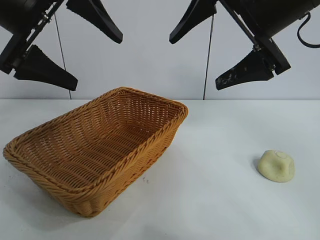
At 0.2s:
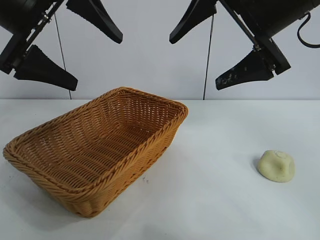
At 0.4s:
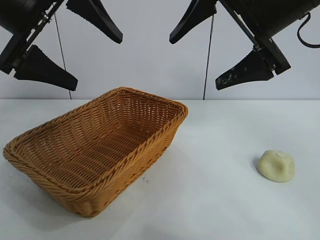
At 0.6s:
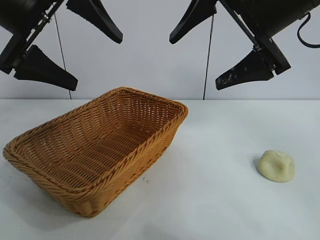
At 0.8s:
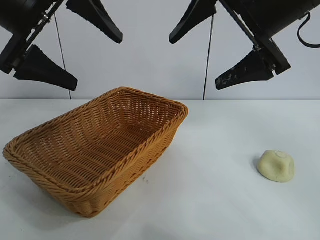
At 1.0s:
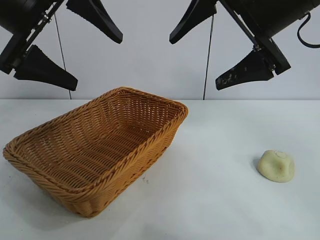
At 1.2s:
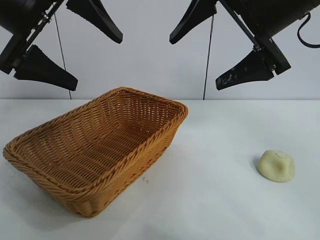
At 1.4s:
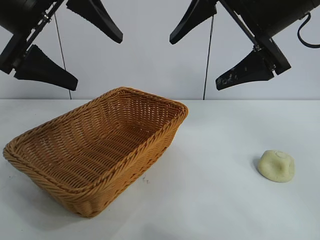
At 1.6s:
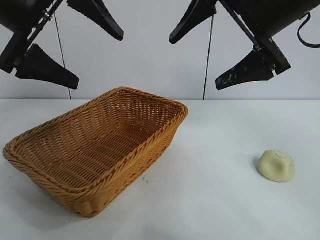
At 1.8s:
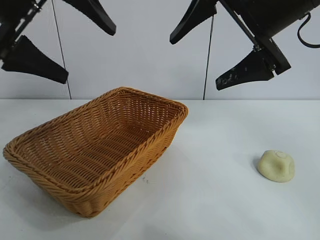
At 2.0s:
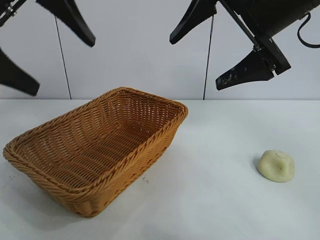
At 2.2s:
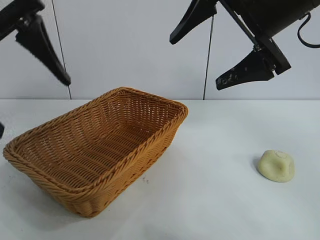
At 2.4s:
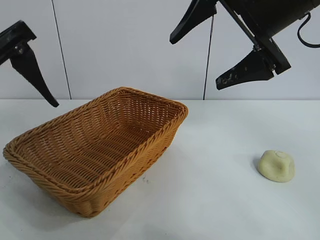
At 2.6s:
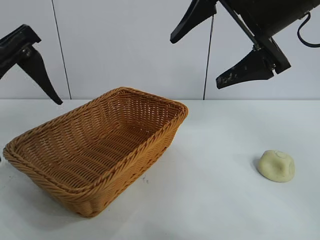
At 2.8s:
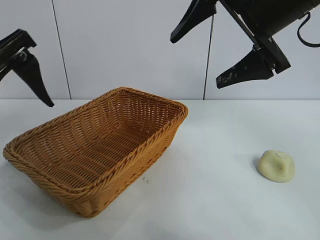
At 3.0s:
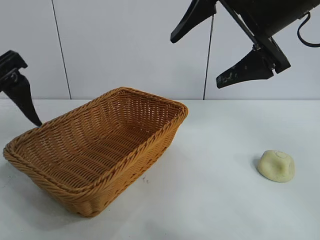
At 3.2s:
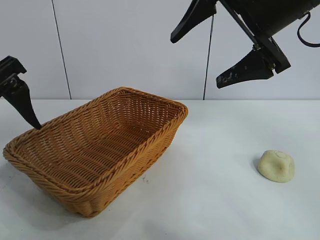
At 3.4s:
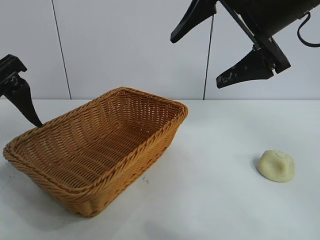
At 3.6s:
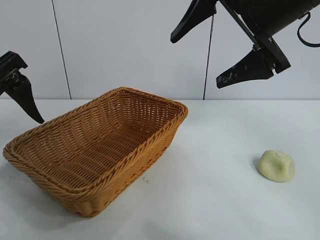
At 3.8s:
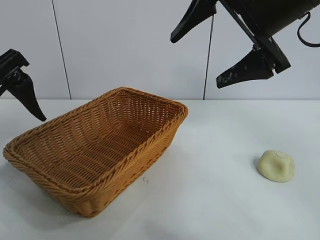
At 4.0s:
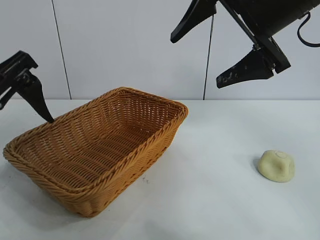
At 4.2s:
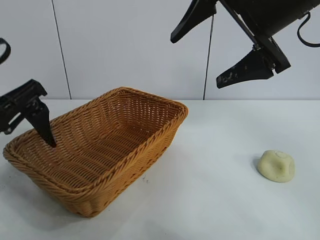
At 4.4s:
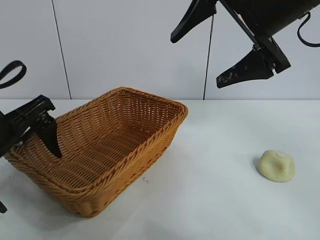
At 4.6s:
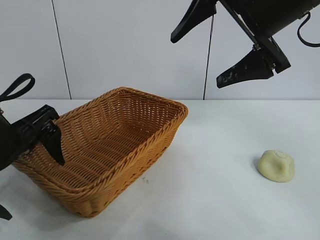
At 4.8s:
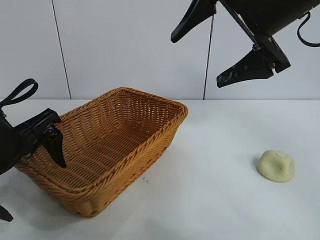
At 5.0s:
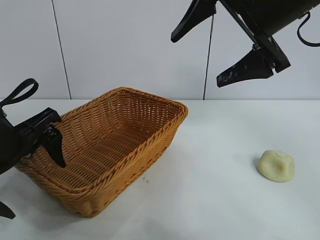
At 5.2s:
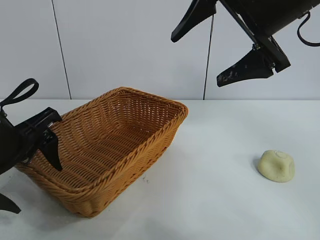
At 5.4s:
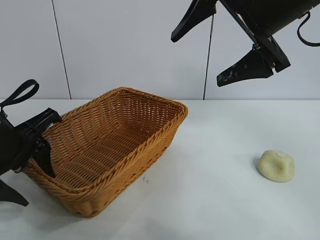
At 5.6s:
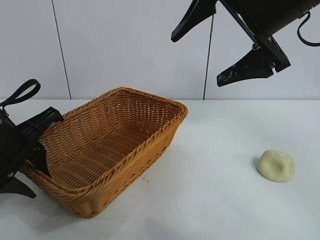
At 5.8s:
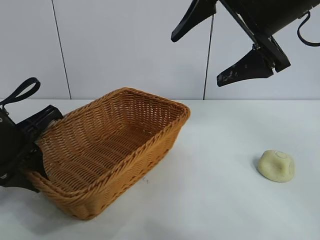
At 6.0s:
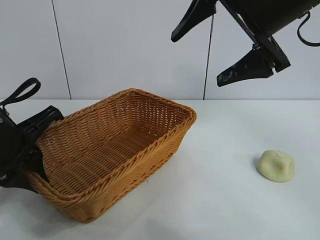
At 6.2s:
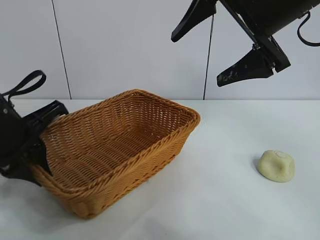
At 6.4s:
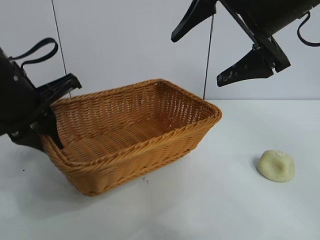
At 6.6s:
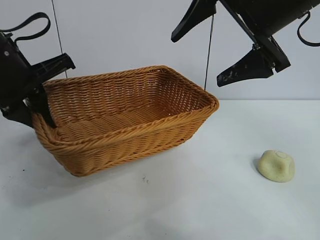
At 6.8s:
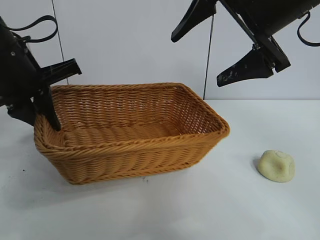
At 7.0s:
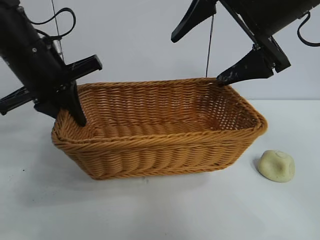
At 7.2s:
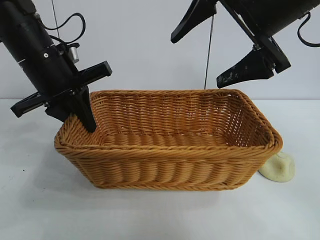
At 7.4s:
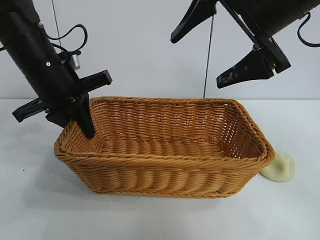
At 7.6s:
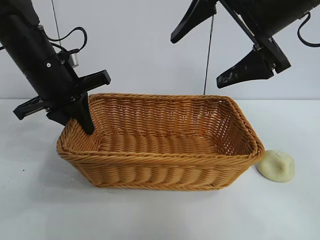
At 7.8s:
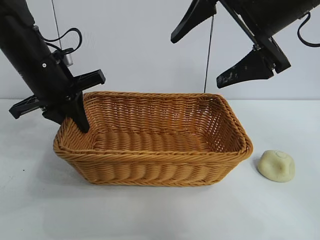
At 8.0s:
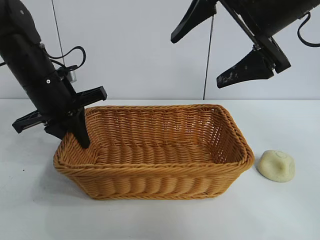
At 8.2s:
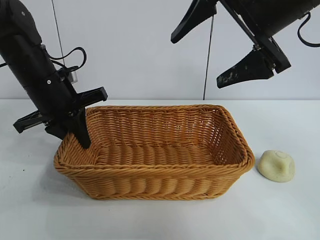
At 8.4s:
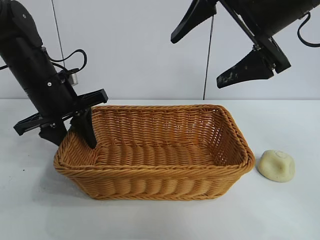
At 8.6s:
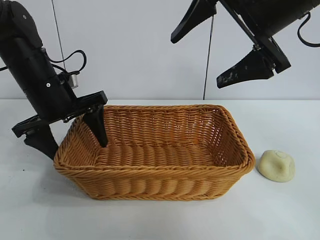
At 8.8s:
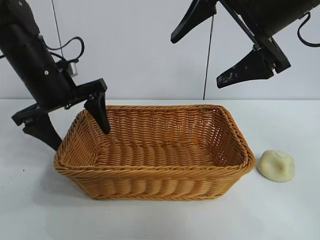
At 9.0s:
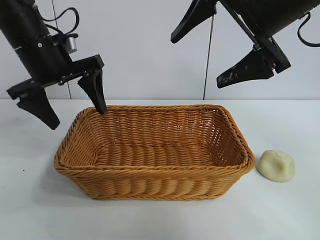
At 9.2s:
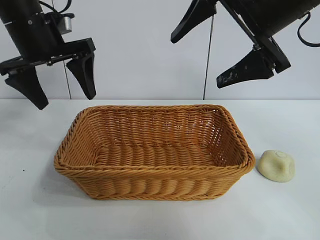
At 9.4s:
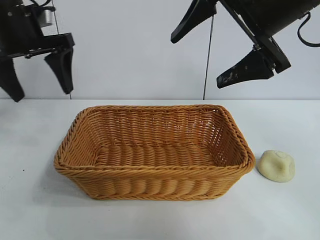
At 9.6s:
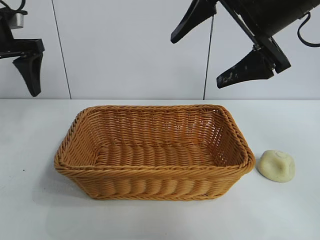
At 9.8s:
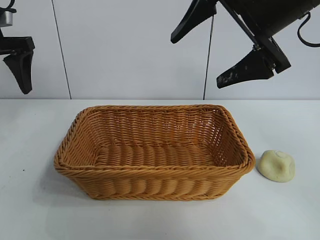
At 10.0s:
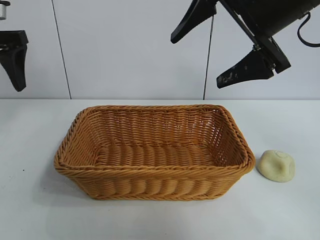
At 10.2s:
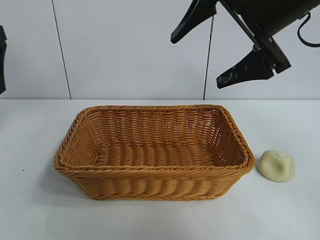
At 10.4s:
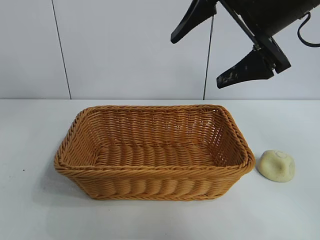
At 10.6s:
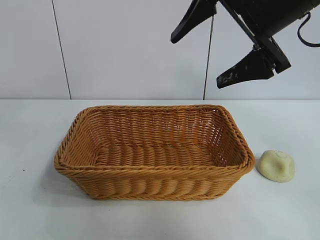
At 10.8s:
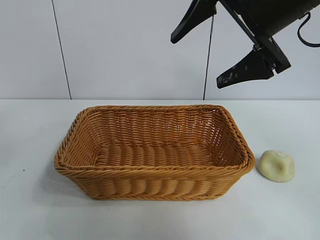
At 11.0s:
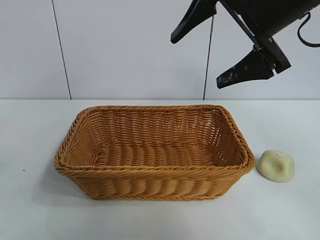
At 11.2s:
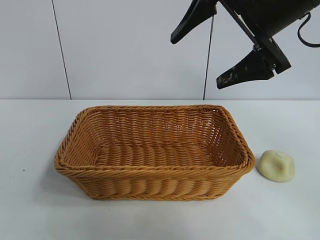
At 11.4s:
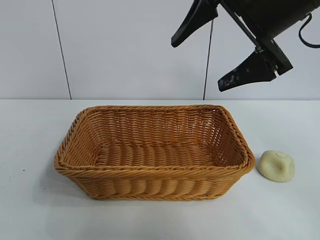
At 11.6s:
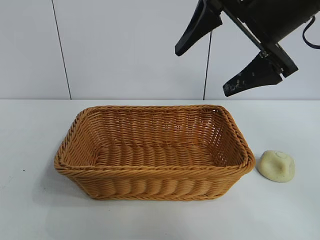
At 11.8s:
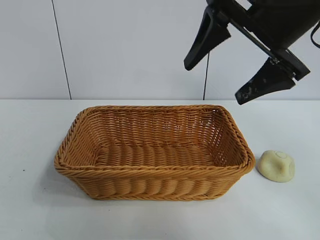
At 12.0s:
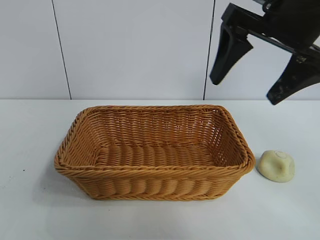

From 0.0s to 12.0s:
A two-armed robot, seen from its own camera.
Task of the whole recording: pick up the egg yolk pastry and put it into the basket.
Step, from 1.6s to 5.8s: Grasp the basket with left gripper.
Step, from 6.0s to 8.4s: Place the basket in the center of view with left gripper.

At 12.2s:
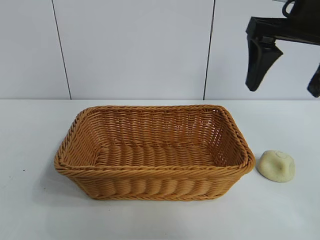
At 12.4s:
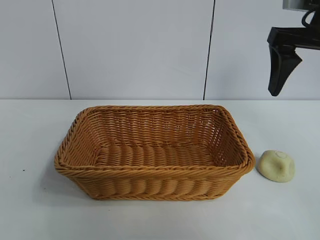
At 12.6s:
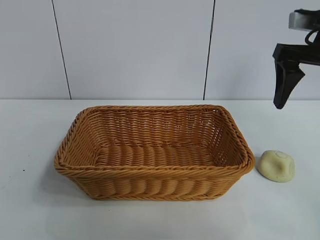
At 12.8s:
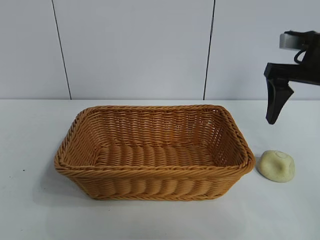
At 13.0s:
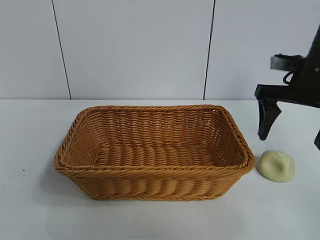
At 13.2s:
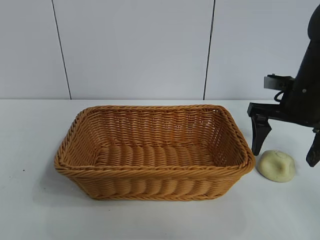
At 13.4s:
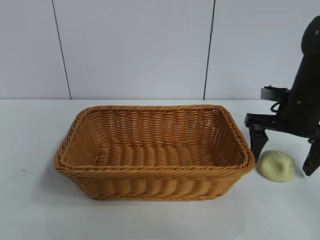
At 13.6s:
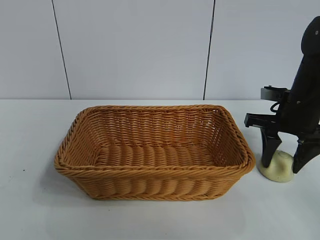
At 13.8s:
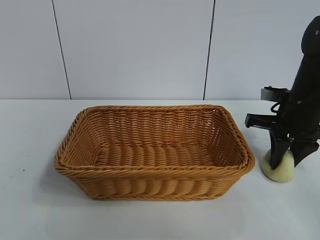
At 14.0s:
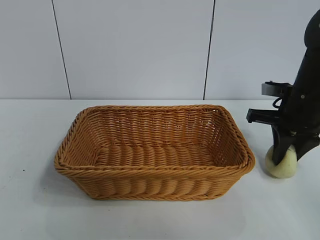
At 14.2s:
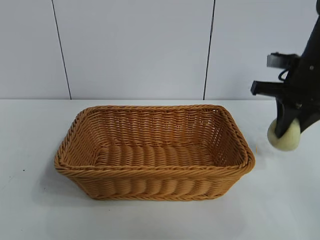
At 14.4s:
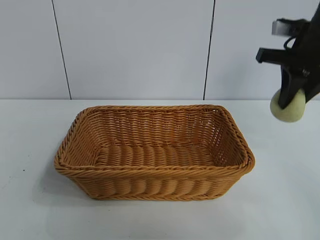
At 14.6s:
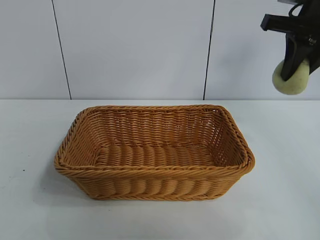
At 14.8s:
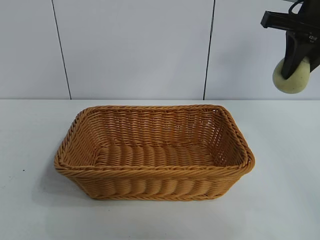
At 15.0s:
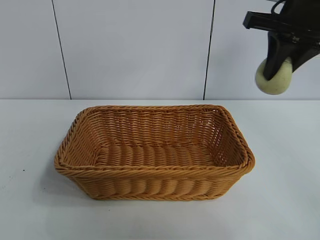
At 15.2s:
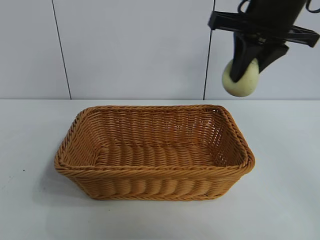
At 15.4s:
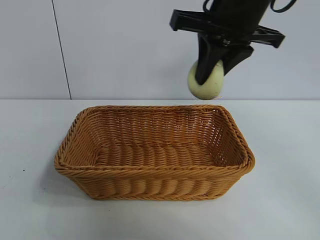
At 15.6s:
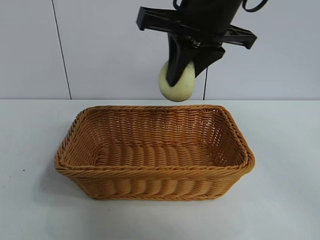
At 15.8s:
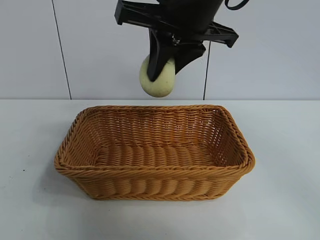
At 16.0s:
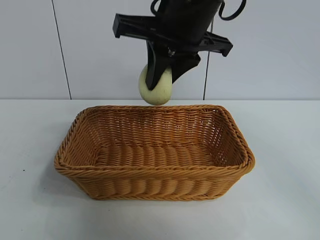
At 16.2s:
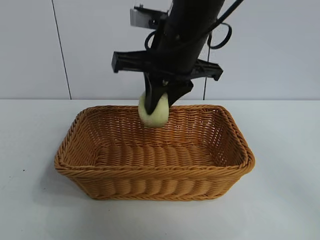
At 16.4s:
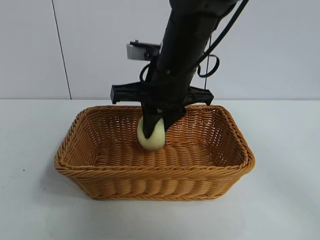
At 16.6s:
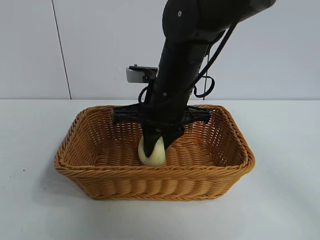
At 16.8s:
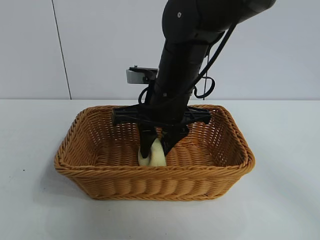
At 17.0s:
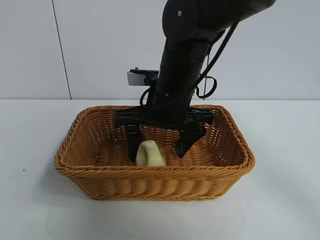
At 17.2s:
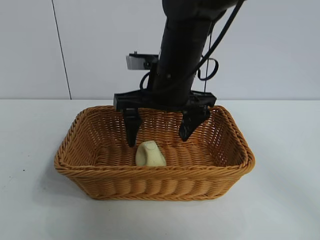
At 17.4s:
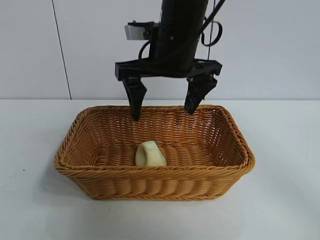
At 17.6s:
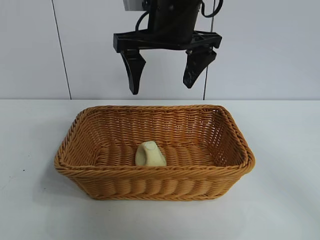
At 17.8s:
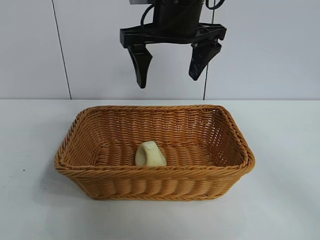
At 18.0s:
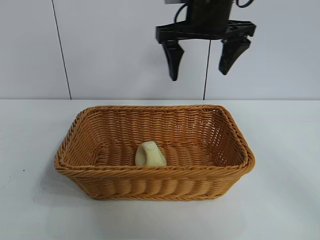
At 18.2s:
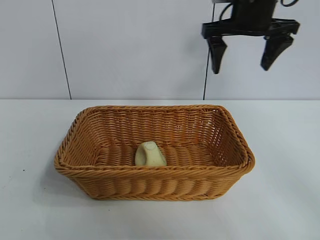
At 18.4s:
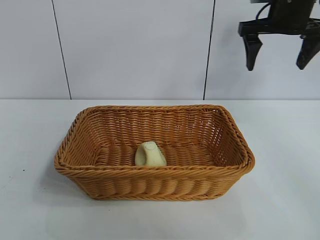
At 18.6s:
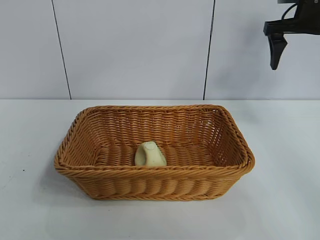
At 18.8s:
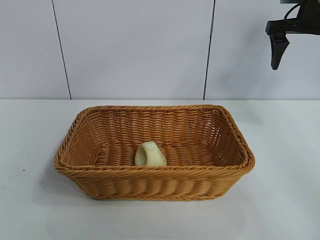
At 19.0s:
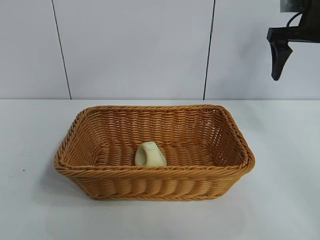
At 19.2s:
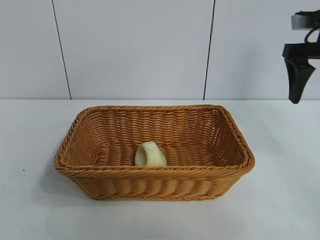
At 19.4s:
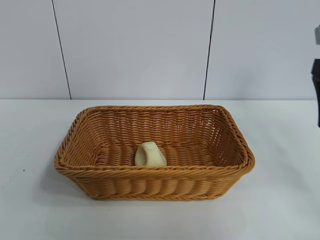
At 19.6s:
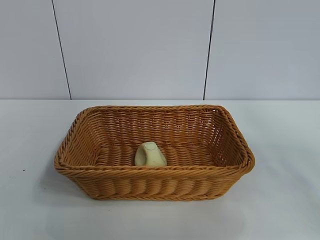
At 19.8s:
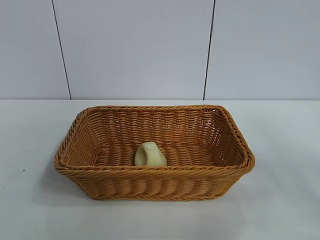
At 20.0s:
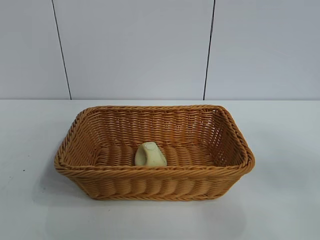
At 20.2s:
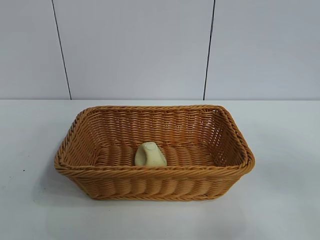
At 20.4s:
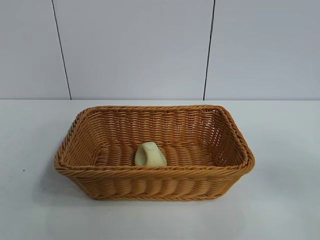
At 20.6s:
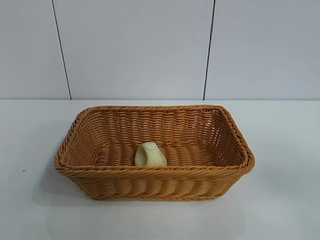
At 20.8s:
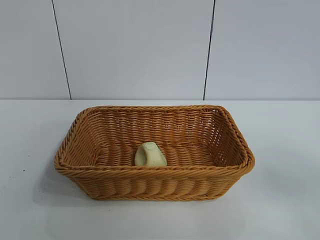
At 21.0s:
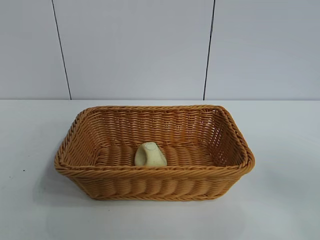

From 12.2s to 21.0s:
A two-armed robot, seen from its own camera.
Task of the whole recording: pick up the egg yolk pastry and put it into the basket.
Step, from 14.0s to 16.8s: Place the egg yolk pastry in the basket with right gripper.
